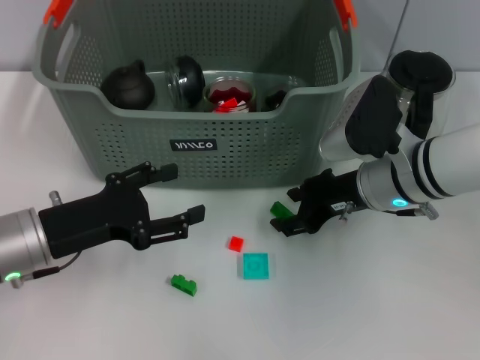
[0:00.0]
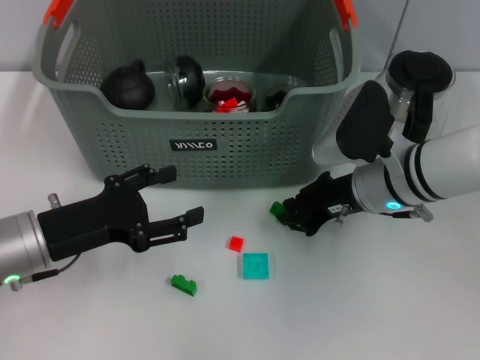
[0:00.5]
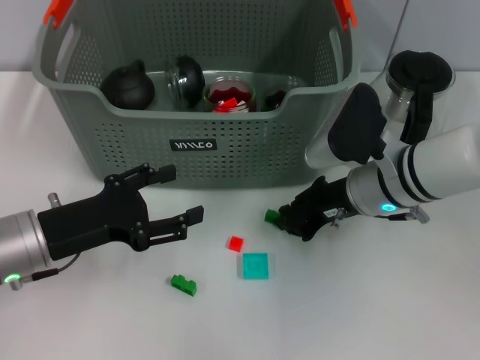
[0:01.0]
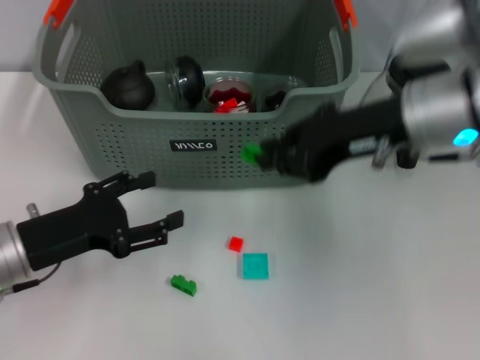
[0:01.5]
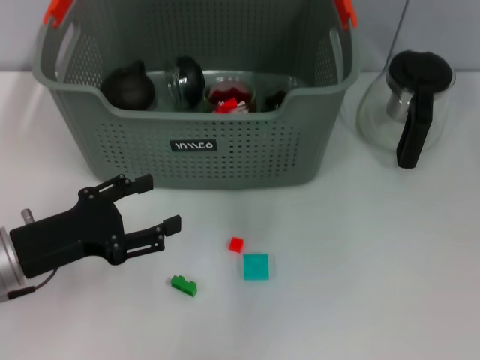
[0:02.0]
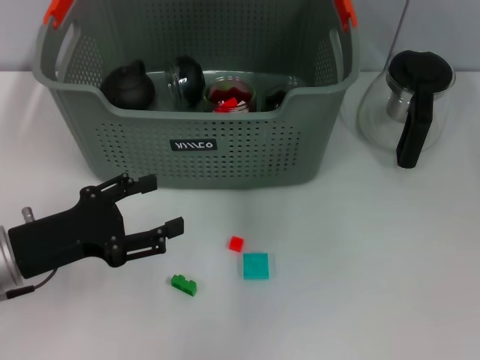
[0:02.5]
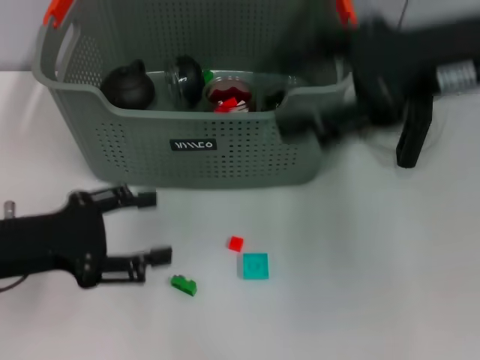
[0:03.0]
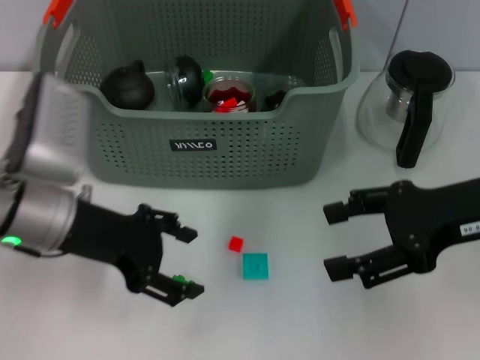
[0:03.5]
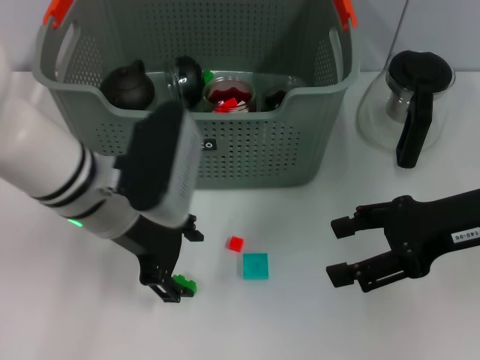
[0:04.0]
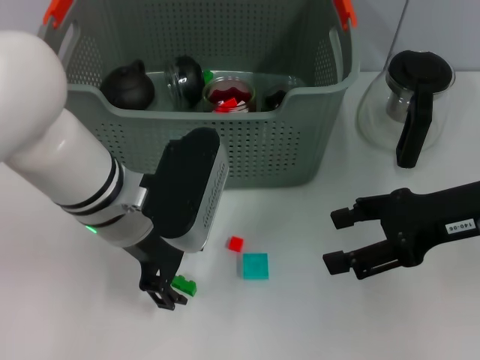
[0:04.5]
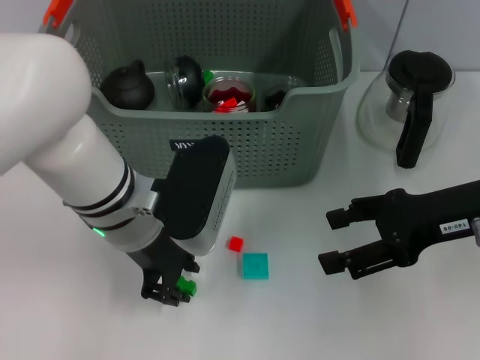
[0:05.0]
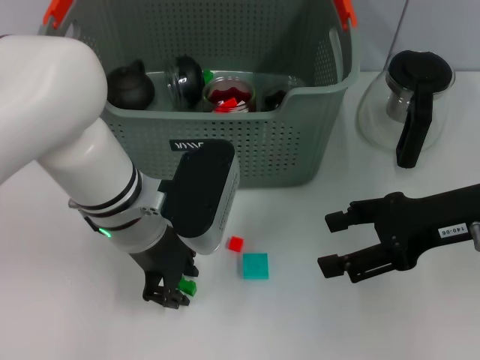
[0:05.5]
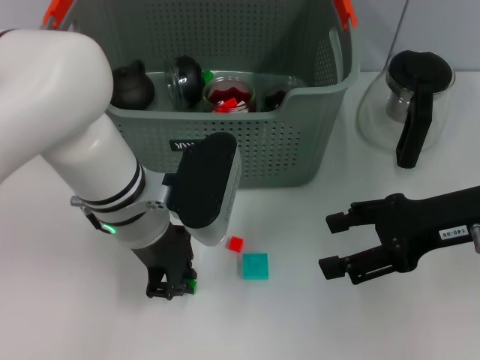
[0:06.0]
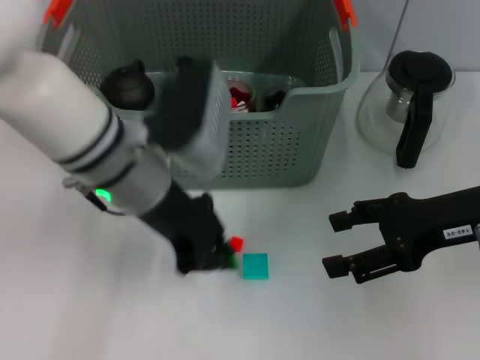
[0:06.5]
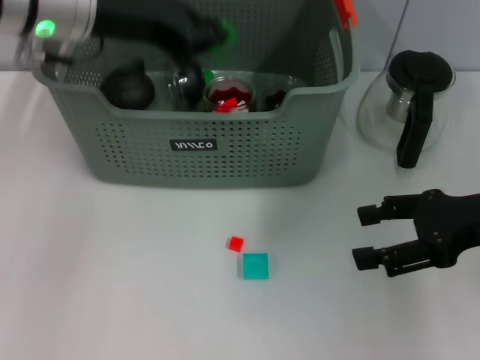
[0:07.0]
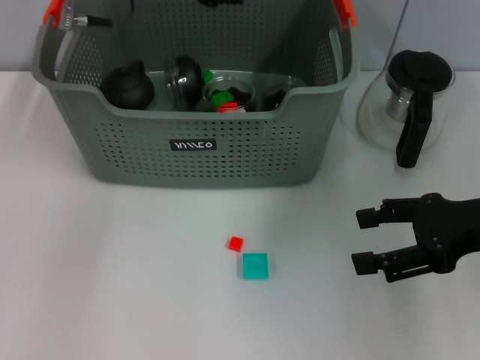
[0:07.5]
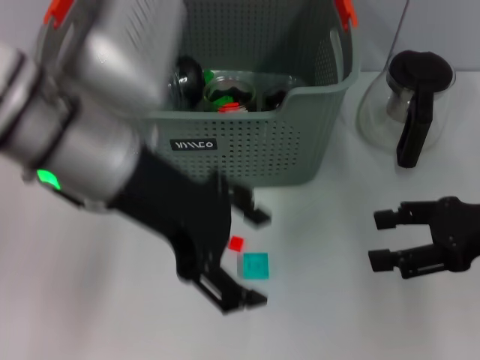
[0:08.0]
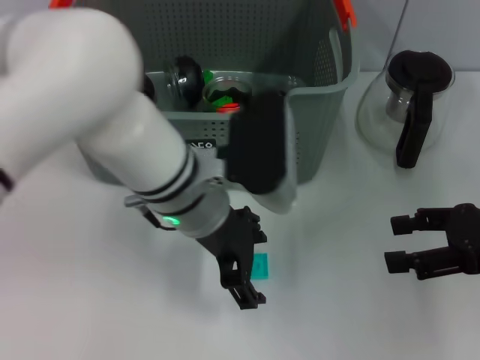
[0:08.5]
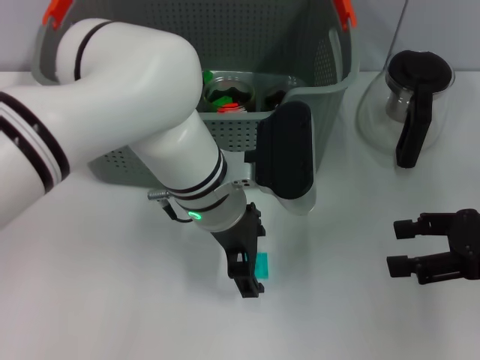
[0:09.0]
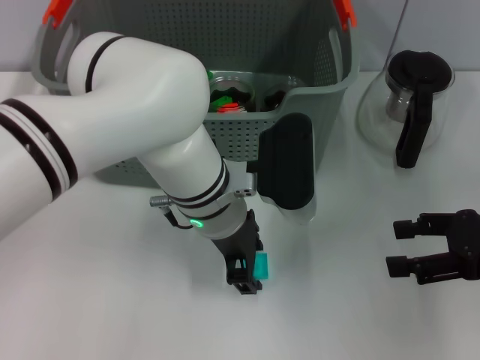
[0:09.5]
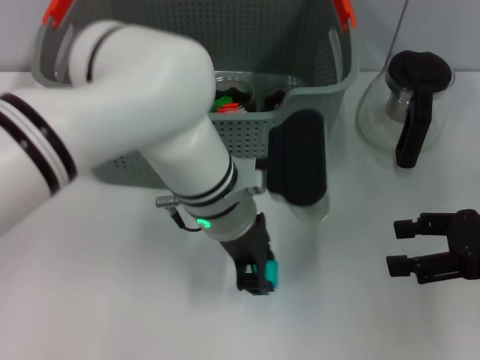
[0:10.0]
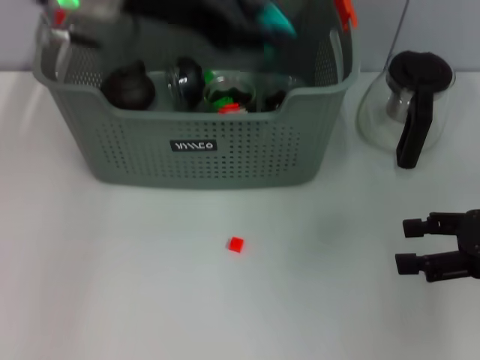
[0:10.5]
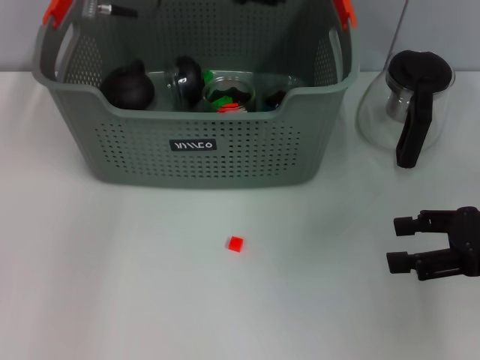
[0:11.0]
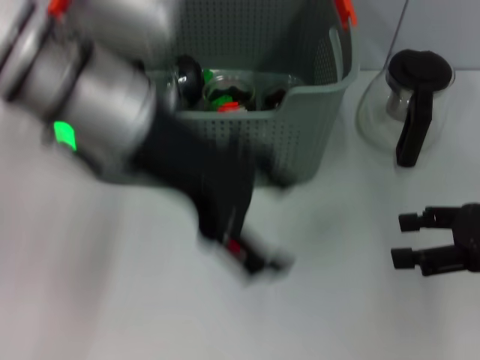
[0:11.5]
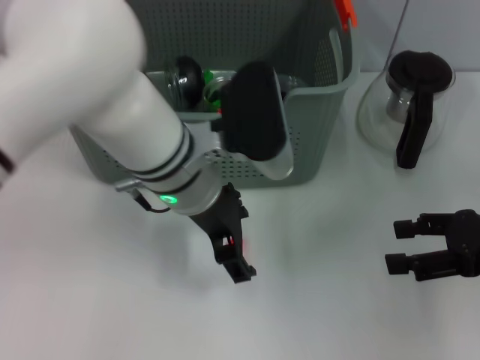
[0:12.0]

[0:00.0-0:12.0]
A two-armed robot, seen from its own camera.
Task of the whole recording: pick up the teacup on the table and place it into the storage bin, pick up the block on the table and place it into the storage bin.
Step, 0:01.0 to 0:02.0: Place the green block in the storage box with right gripper.
Step, 0:03.0 to 0:06.0: Grasp the green block with left gripper.
Step, 0:06.5 to 0:07.0: Place the green block in the storage box with left gripper.
Step, 0:07.5 to 0:09.5: Grasp the light blue block with left gripper.
Step, 0:10.0 to 0:11.0: Place the light blue block in the storage box with left gripper.
0:00.0 to 0:02.0: The right gripper is displaced upward by approximately 25 cm, and closes up.
0:02.0 to 0:04.0: The left gripper moves to the right, upward and forward, about 15 cm; the right gripper moves downward, backward and to the right, some 20 cm, and opens its fingers.
0:04.0 to 0:06.0: The left gripper closes its fingers.
0:06.0 to 0:08.0: The right gripper is displaced to the right by about 5 cm, while the left gripper shifts some 10 cm upward, and opens.
0:08.0 to 0:10.0: The left gripper travels downward and to the right by approximately 15 cm, and closes its fingers.
0:10.0 to 0:12.0: The left gripper moves roughly 15 cm upward and comes back, and opens its fingers.

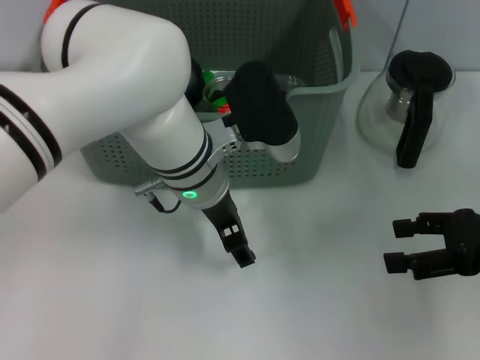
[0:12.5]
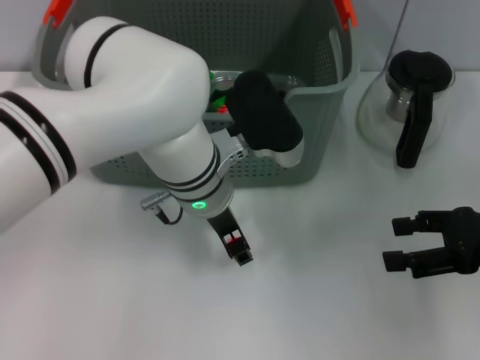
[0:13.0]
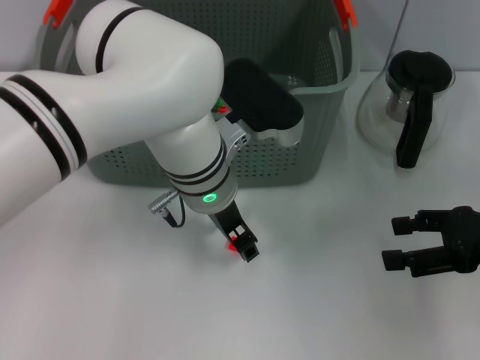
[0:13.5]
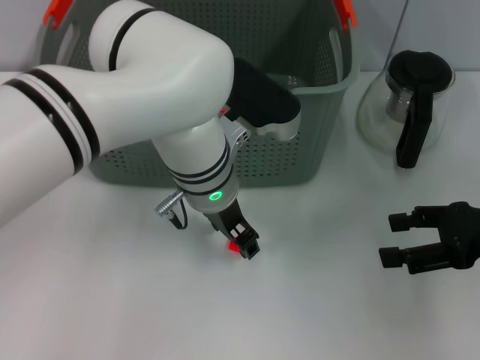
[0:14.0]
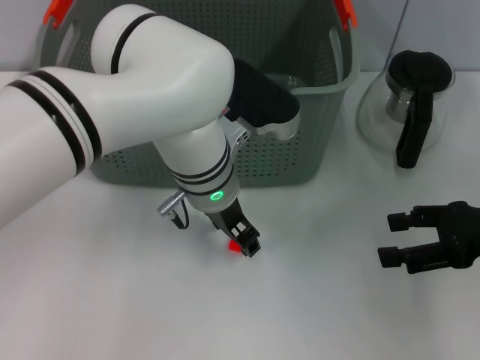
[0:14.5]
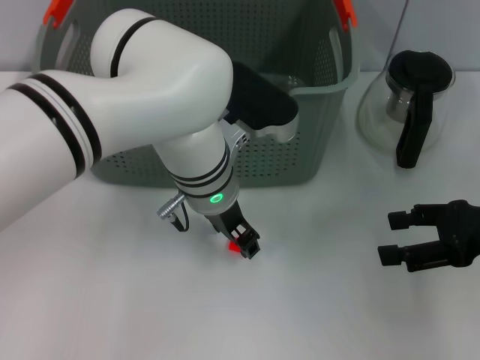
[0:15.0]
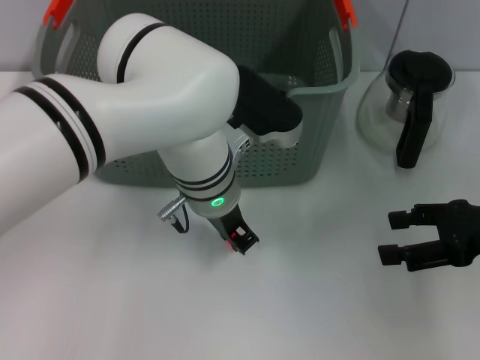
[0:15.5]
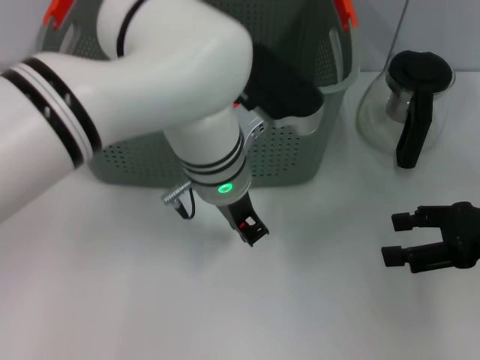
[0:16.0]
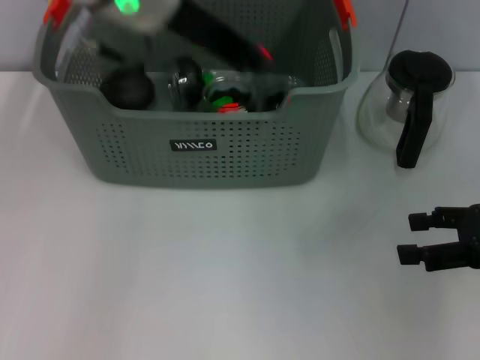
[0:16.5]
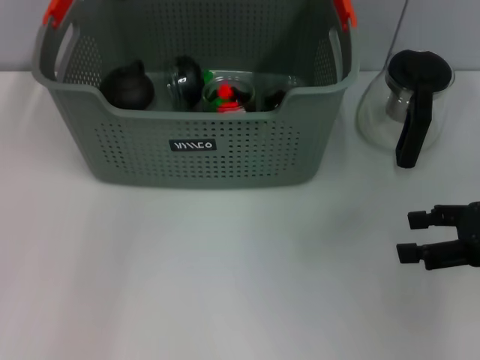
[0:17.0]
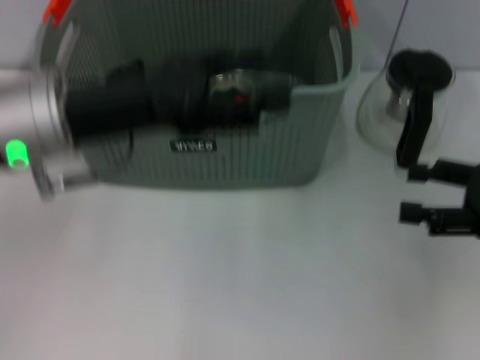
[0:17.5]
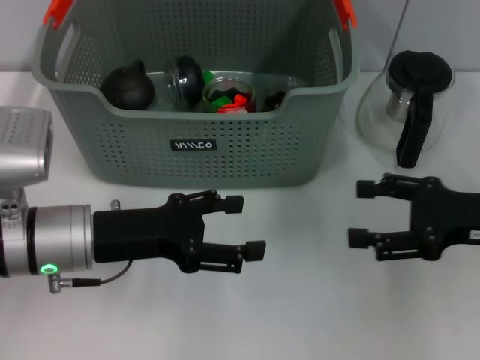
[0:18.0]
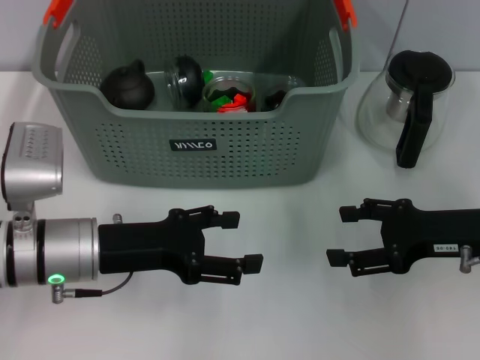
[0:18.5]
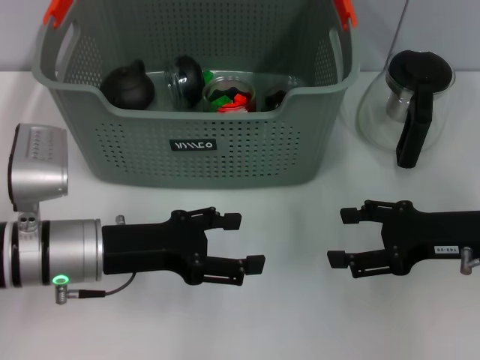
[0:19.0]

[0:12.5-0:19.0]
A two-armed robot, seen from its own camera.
Task of the whole recording: pick up the teacup on the table and place it into the storage bin, pick up the block on the table and place it into the storage bin.
Step, 0:12.5 to 0:15.0: Grasp the orange block with left gripper.
Step, 0:16.0 to 0:16.5: Place the orange block in the storage box with left gripper.
0:12.5 to 0:14.5: The left gripper closes its fingers.
0:14.5 to 0:17.0: The left gripper moves upward and to the left, about 20 cm.
0:17.0 to 0:19.0: The right gripper goes about 5 cm to the left. The left gripper moves downward and backward, roughly 25 cm, and opens up.
